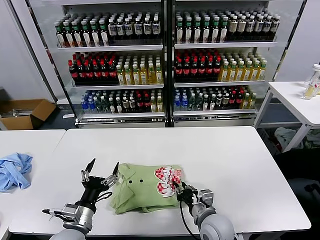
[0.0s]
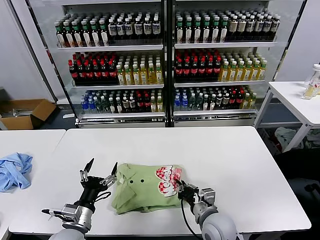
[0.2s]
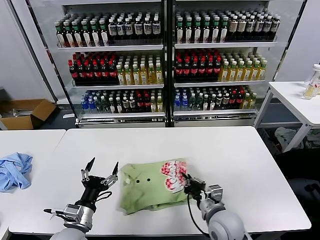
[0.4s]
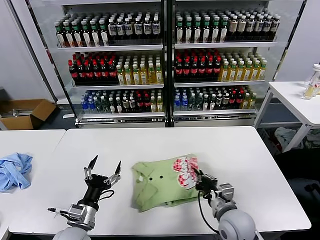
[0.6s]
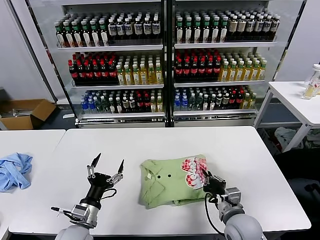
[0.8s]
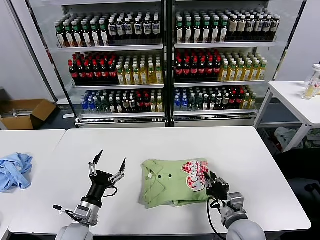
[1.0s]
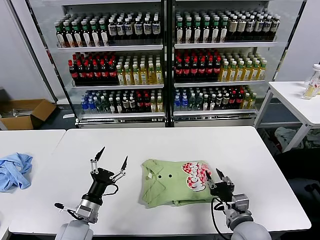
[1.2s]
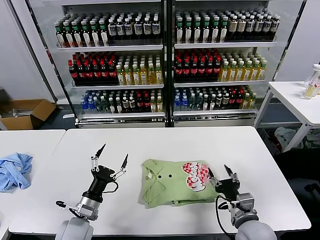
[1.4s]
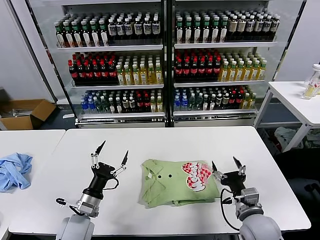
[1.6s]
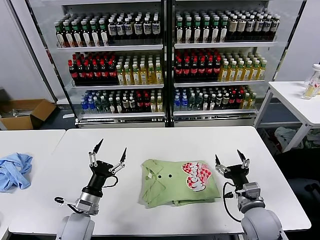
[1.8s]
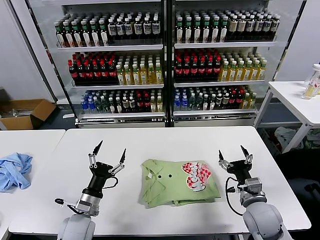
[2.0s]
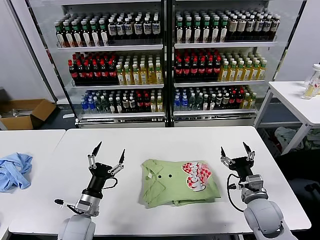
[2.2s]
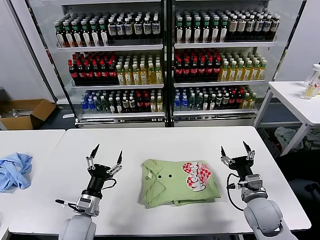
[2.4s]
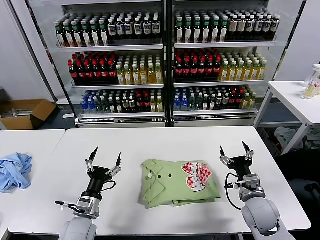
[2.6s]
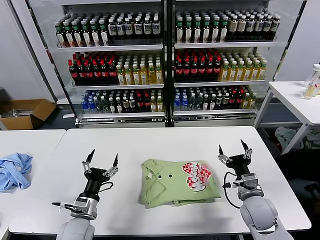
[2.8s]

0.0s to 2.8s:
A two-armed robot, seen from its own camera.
Task of the whole recording: fold and organize the clothes.
Step, 0.0s to 1.2s: Drag the clothes to the center of the table.
0.0s to 1.4s: The right gripper is displaced to the right by some 10 cm. The left gripper changes place by some 5 cm.
1.4s to 2.8s: The right gripper shifts approximately 5 cm forward.

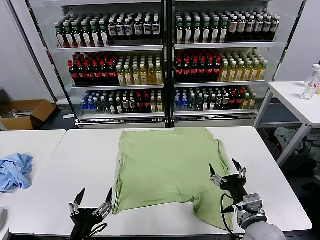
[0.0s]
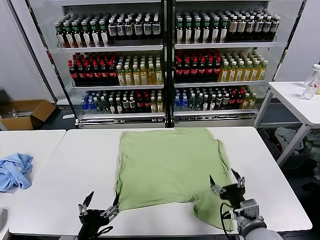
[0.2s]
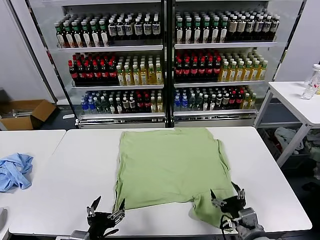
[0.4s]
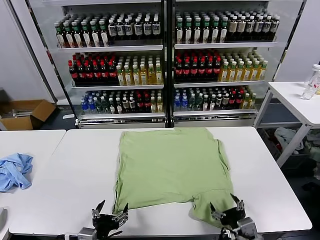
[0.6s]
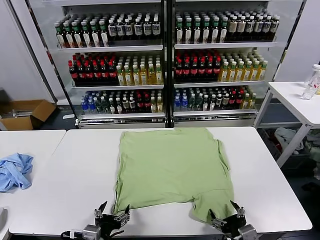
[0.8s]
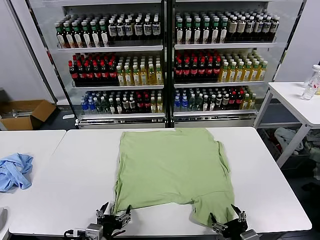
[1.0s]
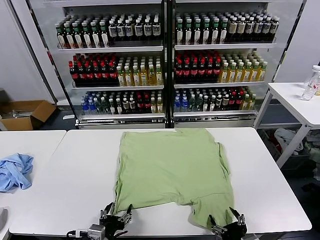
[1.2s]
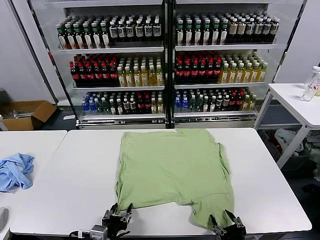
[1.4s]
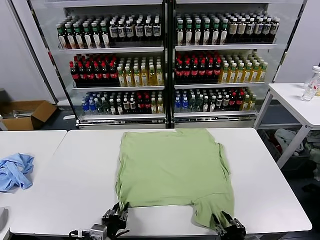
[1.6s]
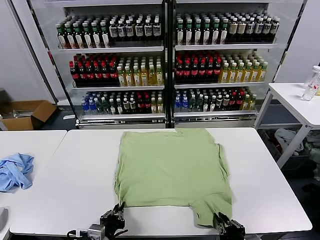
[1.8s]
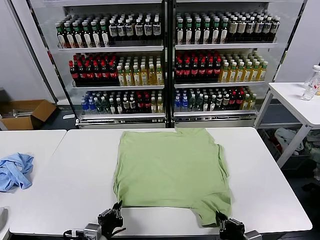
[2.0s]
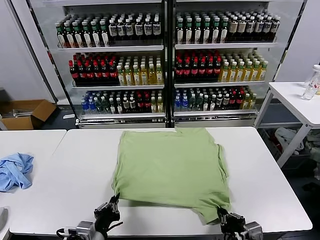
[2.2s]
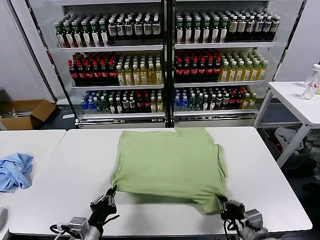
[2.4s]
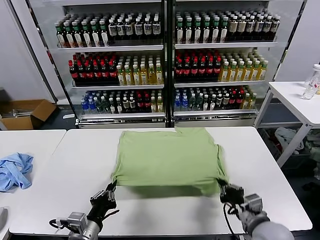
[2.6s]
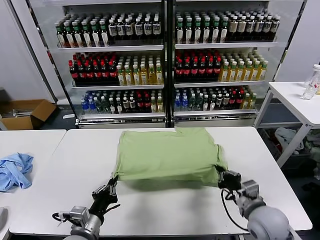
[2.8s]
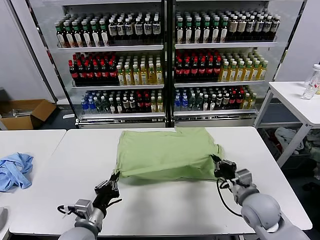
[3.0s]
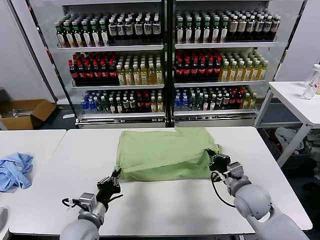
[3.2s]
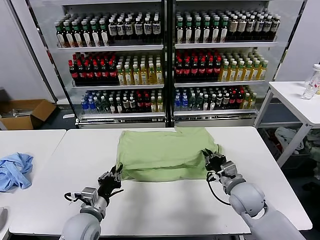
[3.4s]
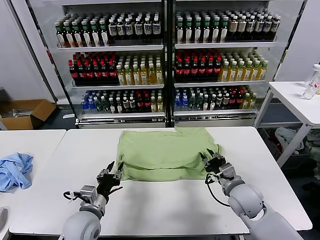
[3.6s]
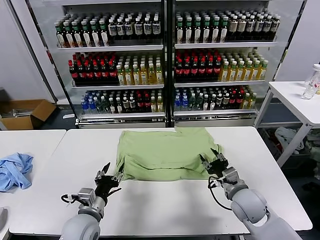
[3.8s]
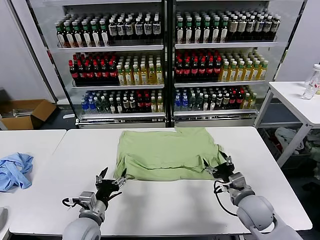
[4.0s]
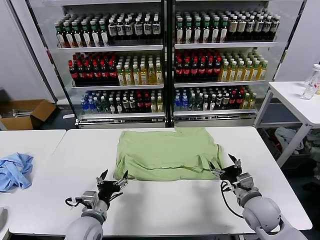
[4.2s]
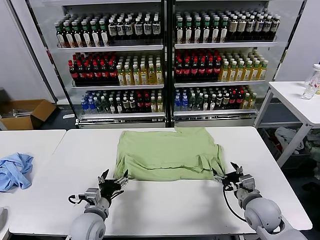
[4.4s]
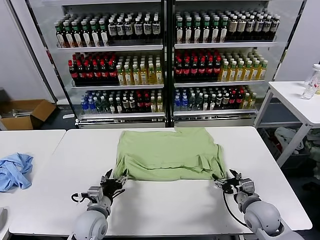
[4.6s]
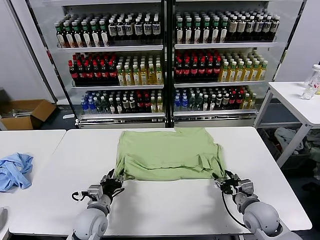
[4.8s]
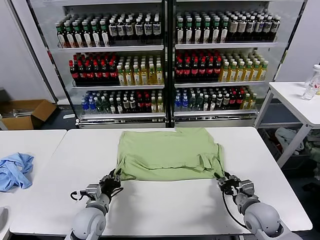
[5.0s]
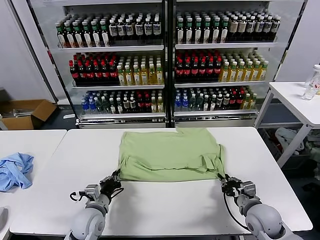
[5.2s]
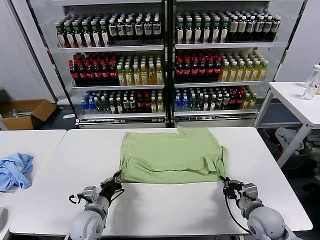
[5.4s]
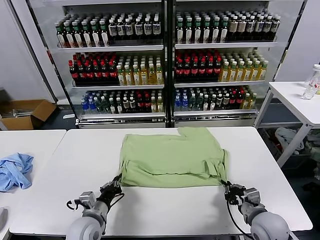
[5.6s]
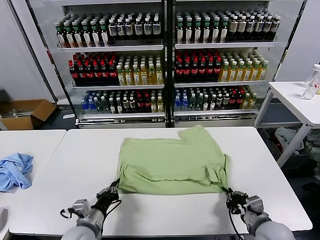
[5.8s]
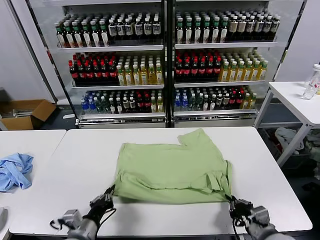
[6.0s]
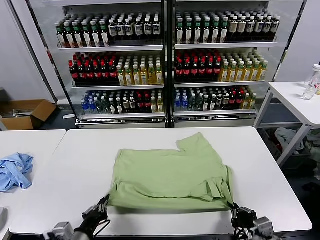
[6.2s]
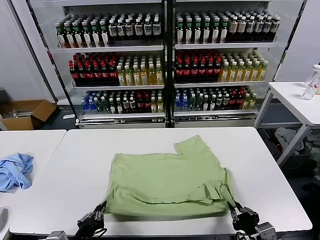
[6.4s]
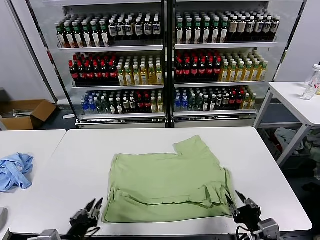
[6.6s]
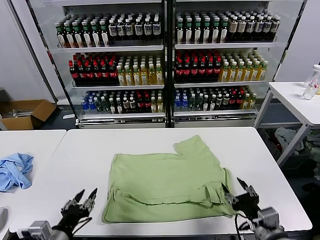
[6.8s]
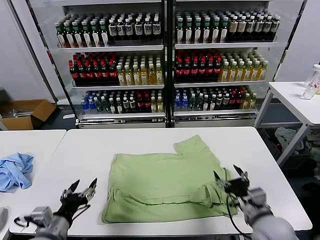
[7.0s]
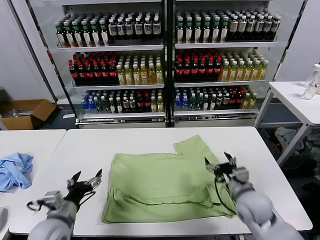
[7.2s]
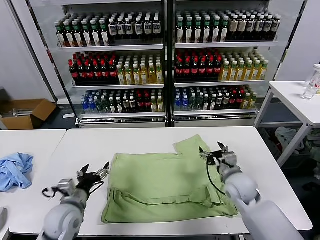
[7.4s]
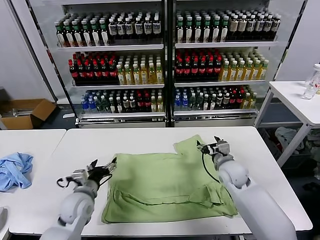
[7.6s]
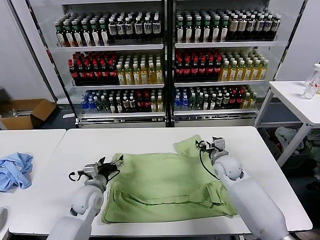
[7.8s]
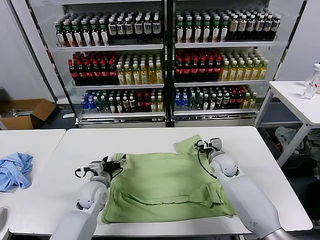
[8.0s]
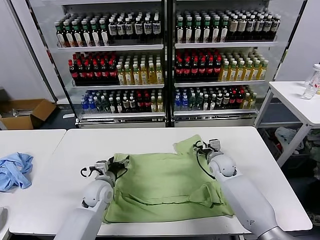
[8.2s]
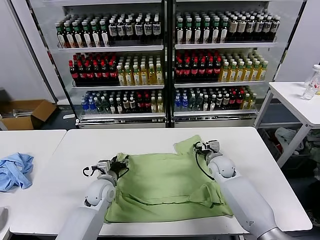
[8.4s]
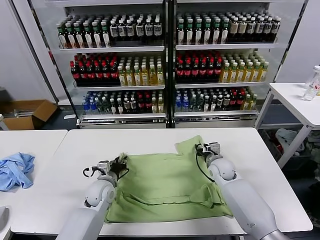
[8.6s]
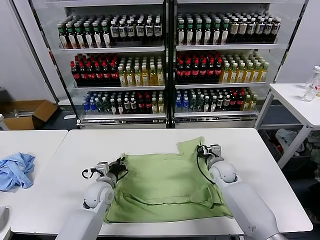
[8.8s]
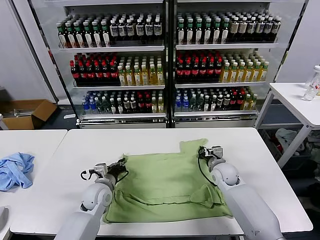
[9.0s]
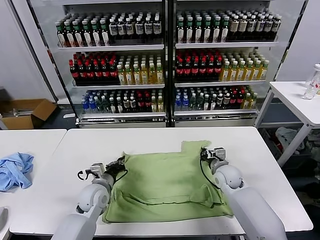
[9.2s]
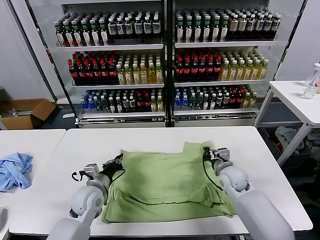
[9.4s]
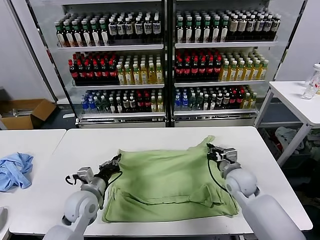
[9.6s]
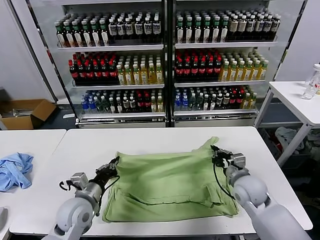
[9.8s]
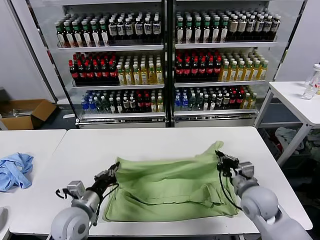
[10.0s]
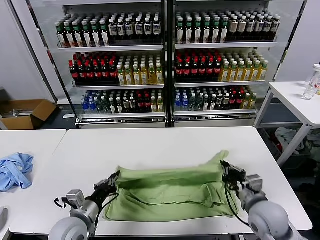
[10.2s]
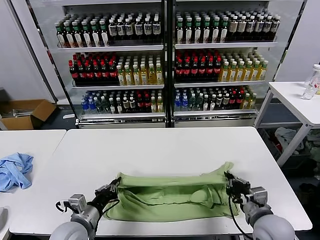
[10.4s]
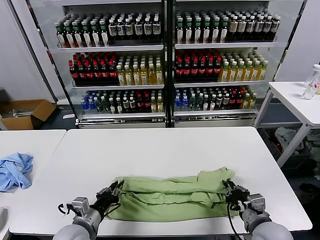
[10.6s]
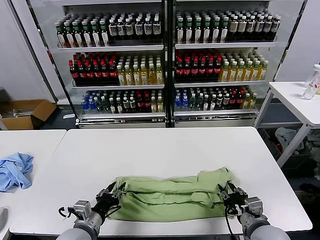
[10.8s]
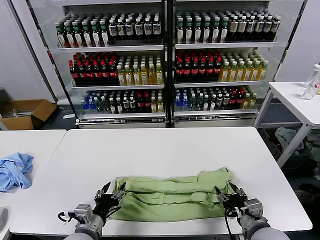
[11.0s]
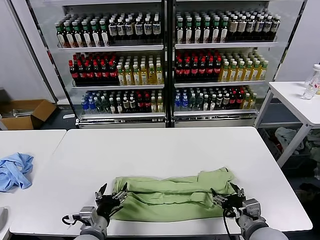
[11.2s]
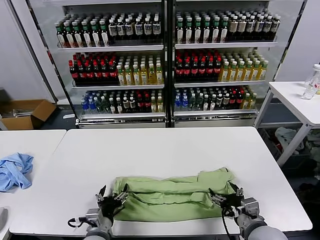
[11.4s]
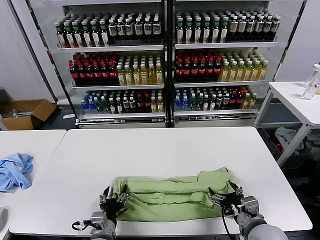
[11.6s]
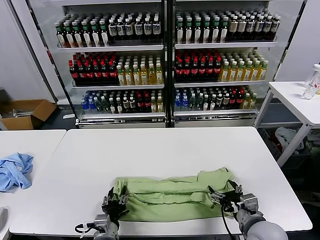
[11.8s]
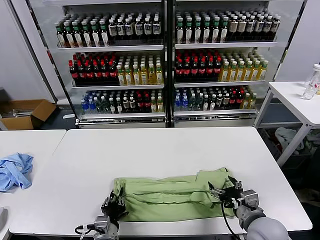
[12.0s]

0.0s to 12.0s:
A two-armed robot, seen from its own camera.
Task of the whole recording: fold and organize the clothes.
Step, 0.0s to 1.8s: use both grippers simultaneously to clamp the lower edge of the clothing fabric.
Step, 2.2s to 3.6s: use both grippers to drag the lower edge of the fabric forward and fold it over the upper edge.
Step, 3.8s to 6.4s: Drag the clothes downward with both gripper.
Step, 6.6s to 8.8s: use both grippers simultaneously to clamp the upper edge of the clothing fabric.
Step, 9.0s to 11.0s: use both grippers to drag the upper edge of the fabric backward and fold it over the lower edge.
1.6s to 3.0s: The left gripper moves forward, about 5 cm, and closes, while the right gripper travels forward by about 20 cm, and closes.
3.0s to 4.4s: The left gripper moves forward, some 5 cm, and opens up. Meanwhile the right gripper shifts by about 5 cm, and opens.
4.4s to 6.0s: The two grippers go about 10 cm backward. The right gripper closes up. The left gripper closes.
6.0s to 7.6s: The right gripper shifts about 25 cm forward, and opens its fingers. Meanwhile the left gripper heads forward, covering about 15 cm, and opens up.
7.6s to 9.0s: The left gripper goes roughly 5 cm forward, and closes its fingers, while the right gripper moves downward, roughly 5 cm, and closes up.
9.0s to 10.4s: The left gripper is displaced backward by some 15 cm. The right gripper is displaced backward by roughly 20 cm.
10.4s to 12.0s: The left gripper goes approximately 10 cm to the right and downward, and opens its fingers, while the right gripper opens.

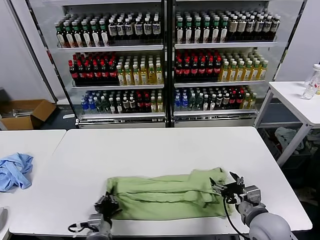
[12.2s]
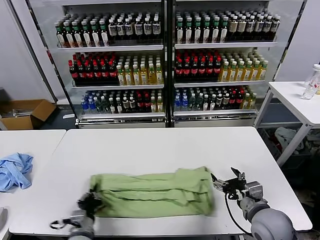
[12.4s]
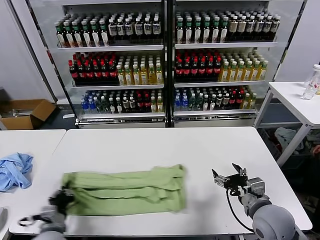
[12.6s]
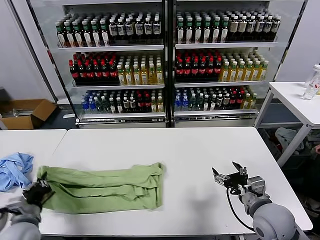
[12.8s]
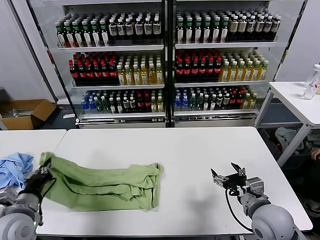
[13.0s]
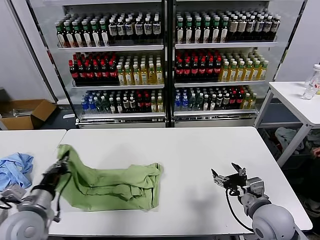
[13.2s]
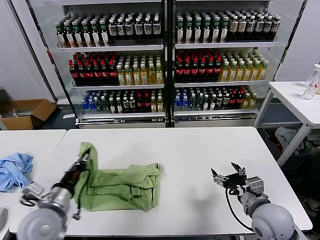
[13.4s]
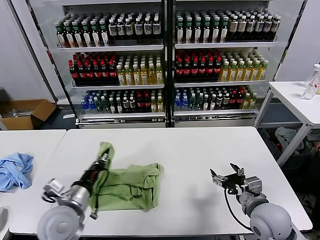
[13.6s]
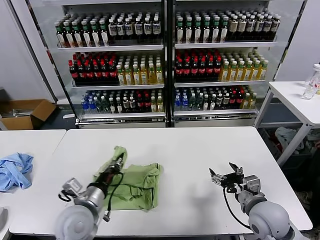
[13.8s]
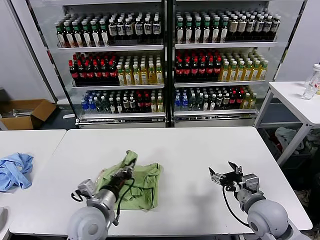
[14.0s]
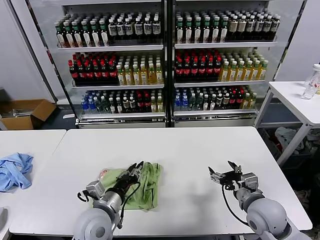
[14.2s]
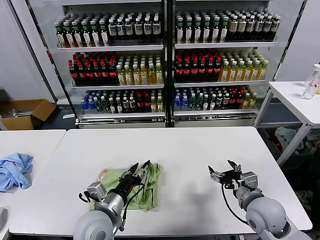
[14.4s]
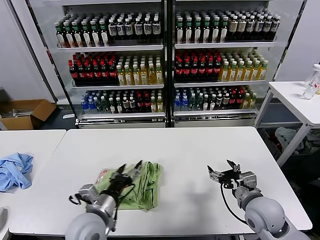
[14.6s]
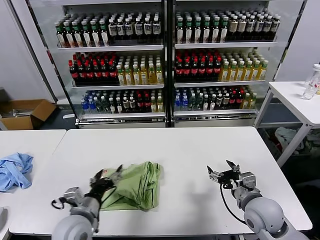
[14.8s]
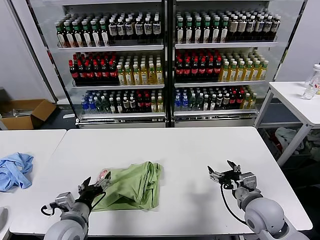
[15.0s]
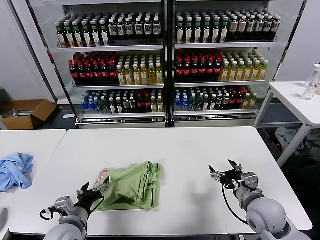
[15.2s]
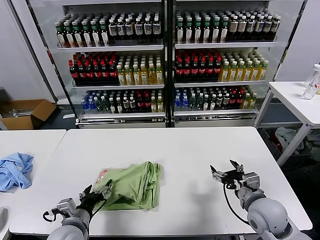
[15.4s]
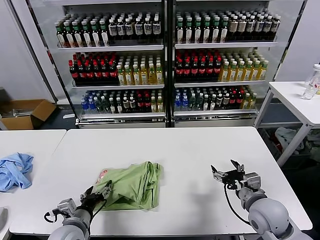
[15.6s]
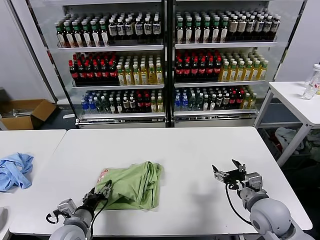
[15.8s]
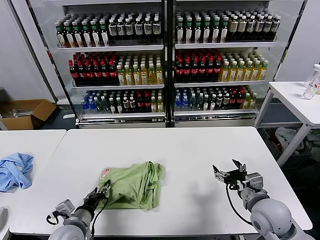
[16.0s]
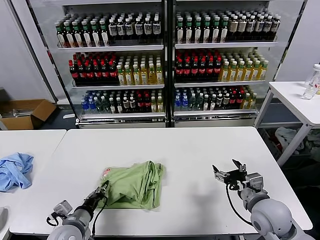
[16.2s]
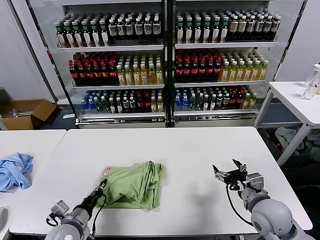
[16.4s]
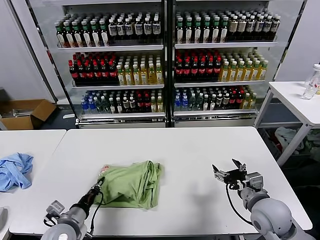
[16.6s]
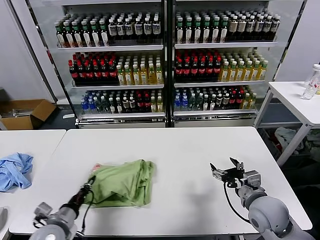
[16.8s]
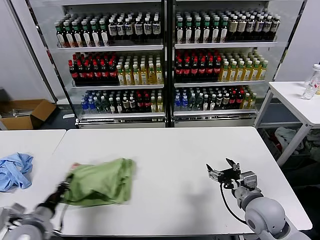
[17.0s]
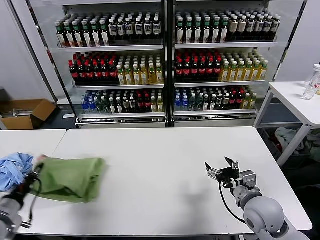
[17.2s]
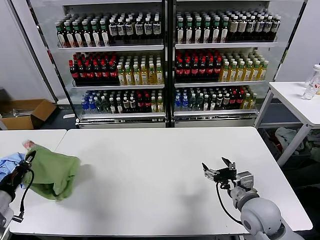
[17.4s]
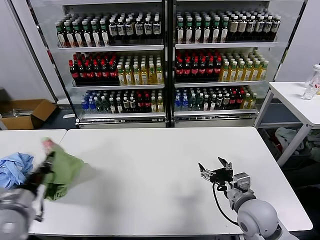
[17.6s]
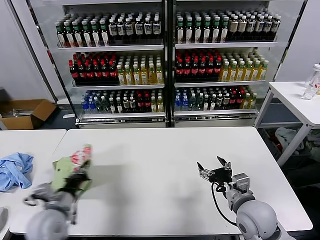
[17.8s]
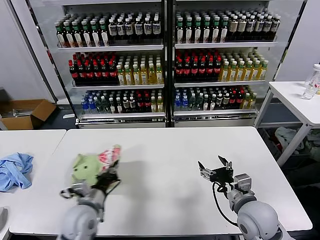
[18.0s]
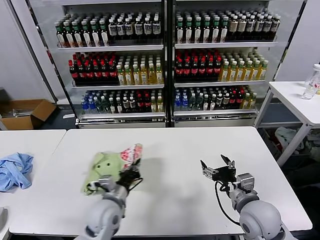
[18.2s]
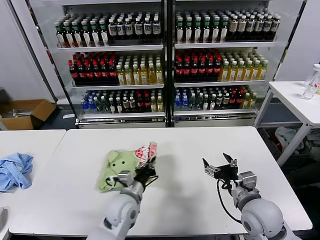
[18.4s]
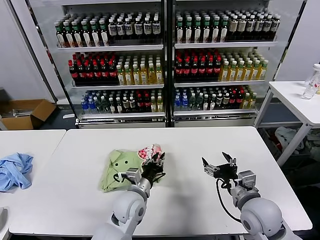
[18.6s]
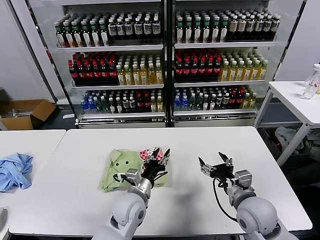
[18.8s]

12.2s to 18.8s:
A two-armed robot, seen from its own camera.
Task of the whole recording: fold and organize the clothes.
Step, 12.4s to 14.2s: use the left gripper to drag the left edge of the fabric to the left and folds it over the right edge.
Step, 14.6s to 18.6s: Flip the folded clothes over with left gripper.
12.2s to 13.8s: The left gripper goes approximately 15 cm upward and forward, and reaches about 20 cm to the left, then returns.
13.8s to 15.4s: The left gripper shifts roughly 5 cm downward, and opens its fingers.
15.4s to 17.2s: The left gripper goes roughly 15 cm to the left, and closes up.
17.2s to 18.8s: The left gripper travels to the right by some 35 cm, and opens up.
